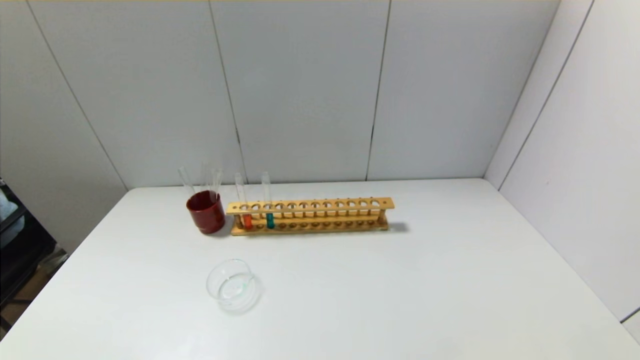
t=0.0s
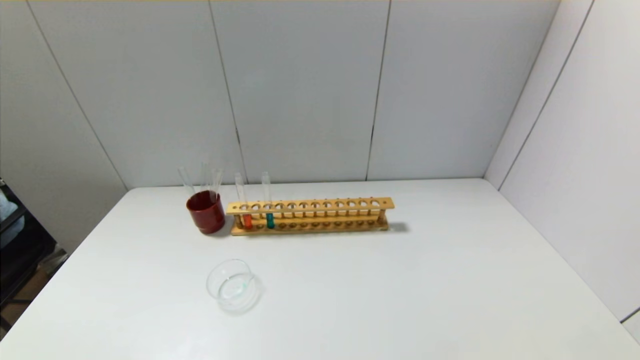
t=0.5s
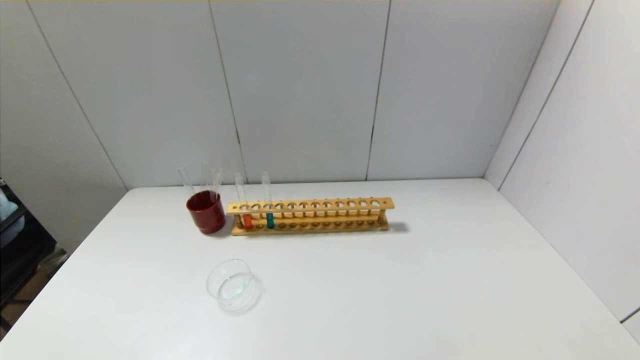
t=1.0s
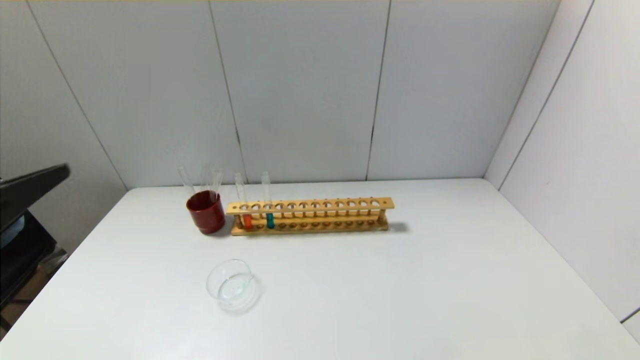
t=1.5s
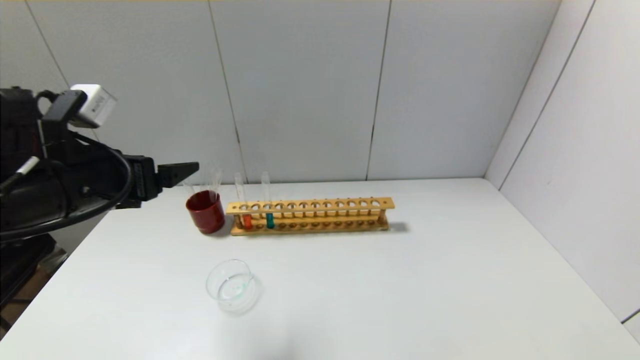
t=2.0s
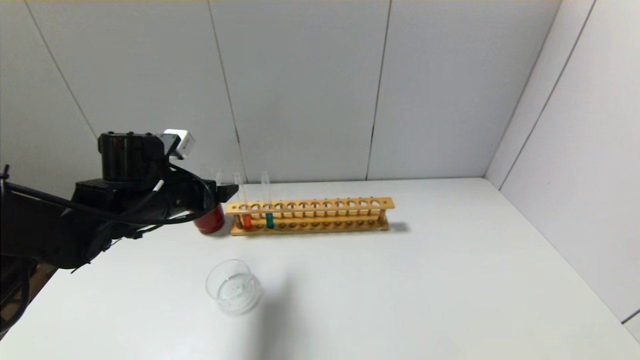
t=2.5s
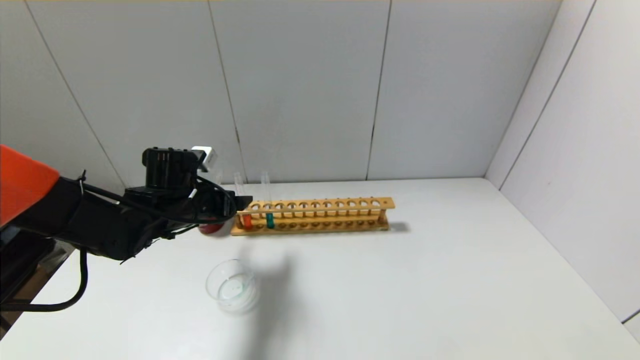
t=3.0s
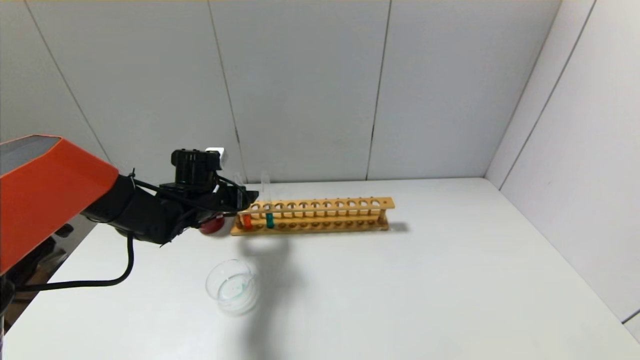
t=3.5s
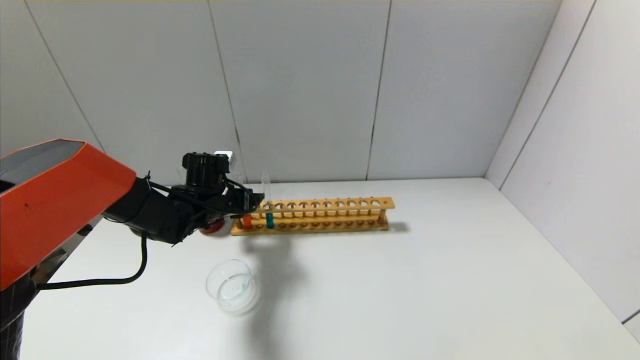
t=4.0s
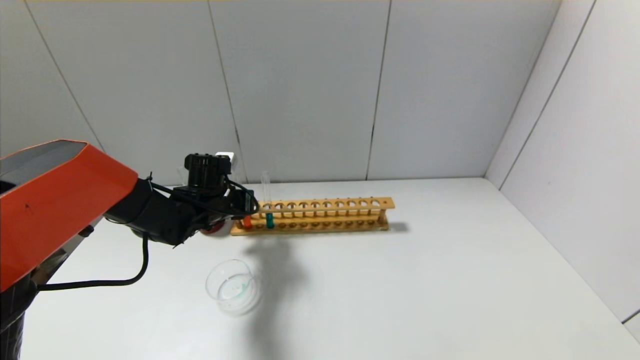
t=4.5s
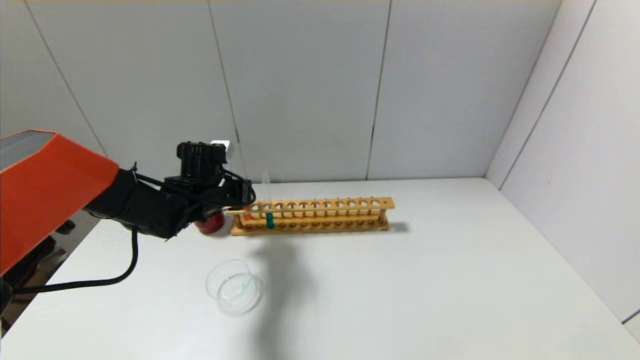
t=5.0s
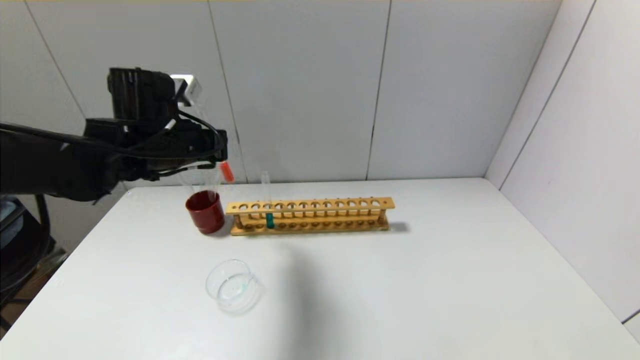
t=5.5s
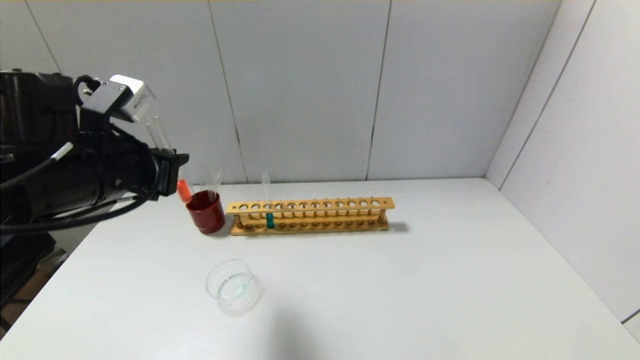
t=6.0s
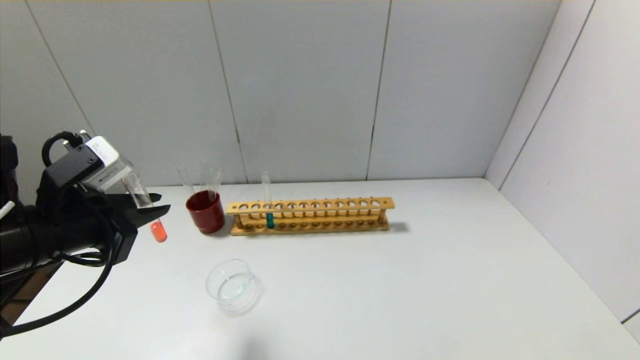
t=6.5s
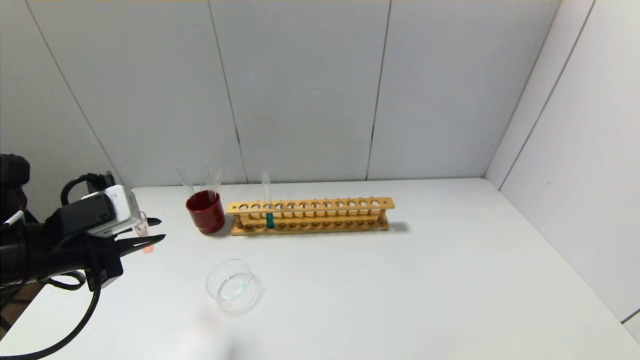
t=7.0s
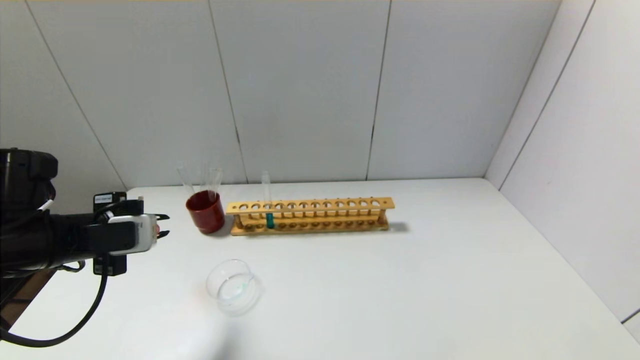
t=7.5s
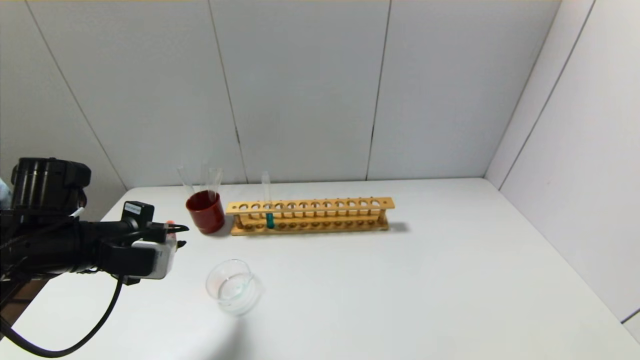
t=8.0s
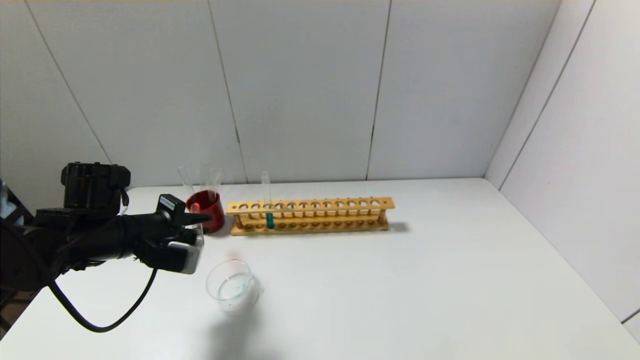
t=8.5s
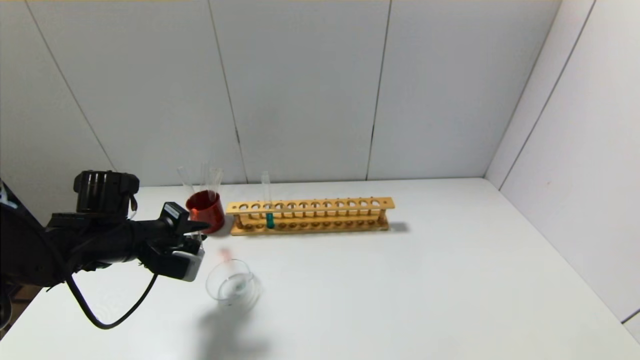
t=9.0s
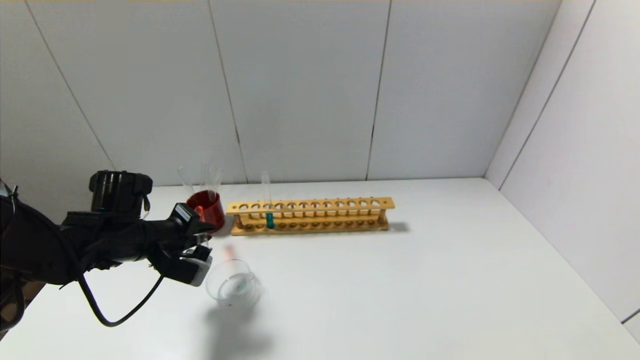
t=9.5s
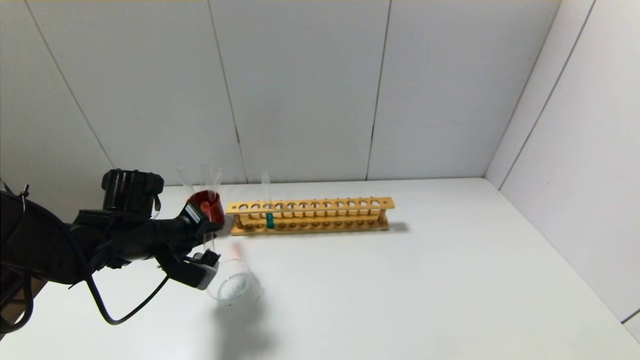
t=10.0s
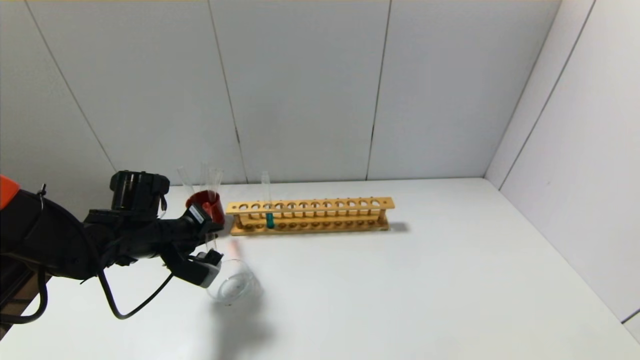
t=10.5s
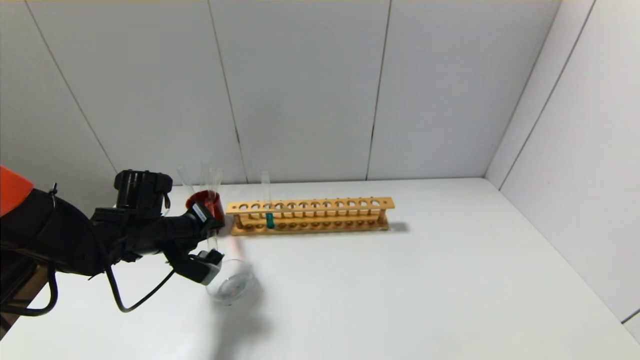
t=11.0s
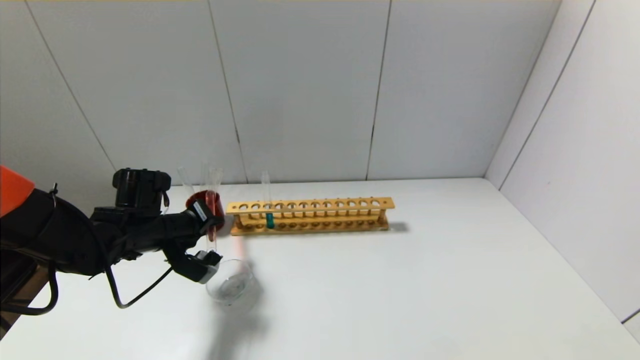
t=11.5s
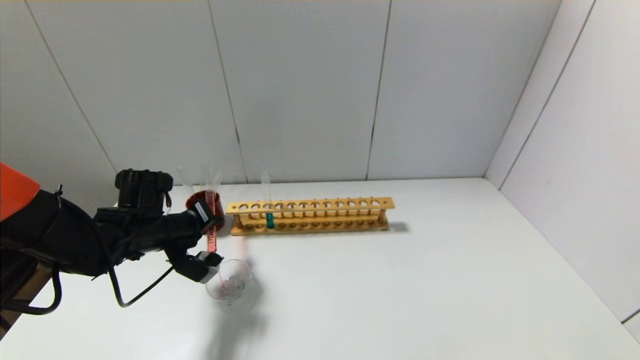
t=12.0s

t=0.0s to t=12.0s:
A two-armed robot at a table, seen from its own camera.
Step, t=0.0s to t=4.5s: Grasp the red reagent with the left gripper.
t=0.0s to t=2.0s: The left gripper goes roughly 30 cm forward and upward.
t=2.0s to t=4.0s: The left gripper shifts roughly 20 cm forward and downward.
t=4.0s to t=6.0s: The left gripper moves backward and upward, about 25 cm, and closes.
t=6.0s to t=8.0s: The left gripper travels downward by roughly 10 cm.
t=8.0s to t=10.0s: The left gripper heads forward, covering about 5 cm.
t=10.0s to t=12.0s: The grippers move only a little.

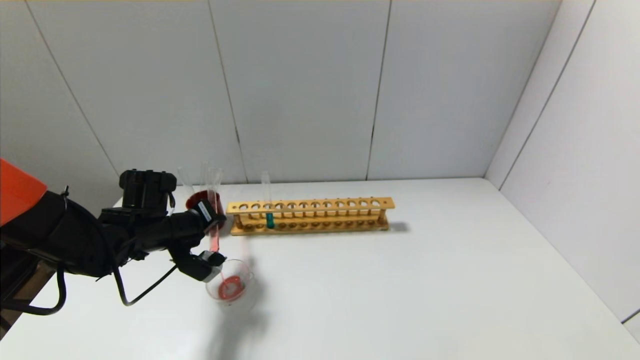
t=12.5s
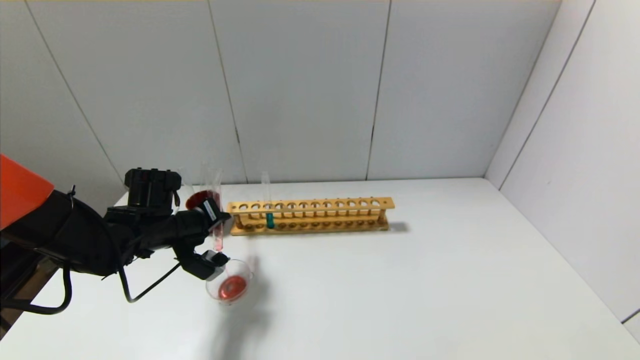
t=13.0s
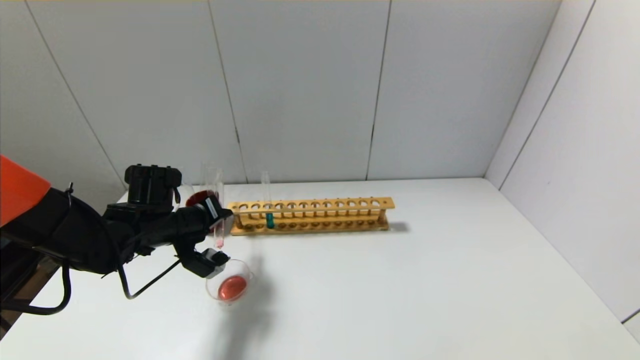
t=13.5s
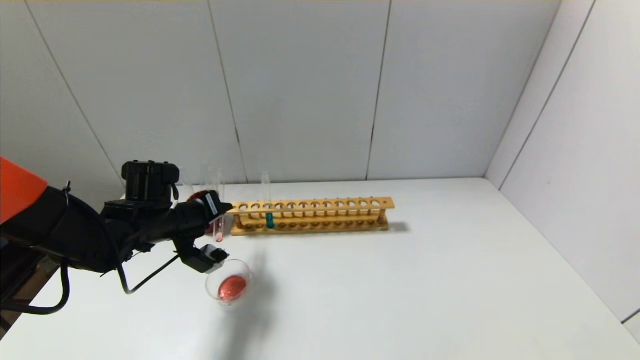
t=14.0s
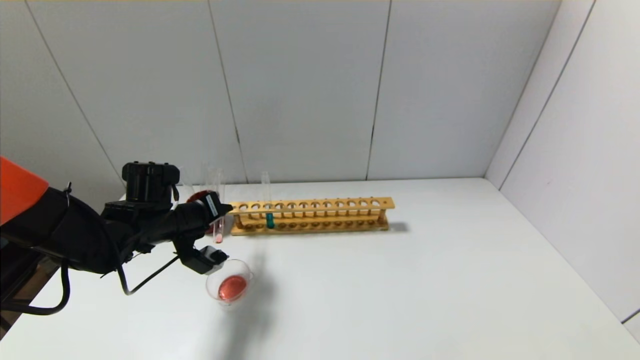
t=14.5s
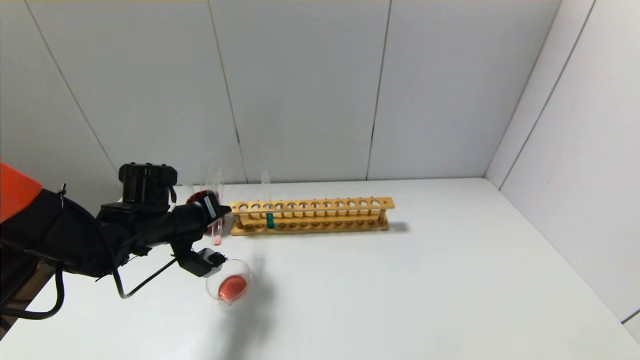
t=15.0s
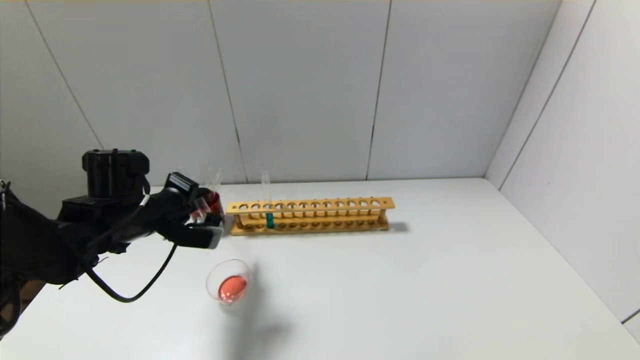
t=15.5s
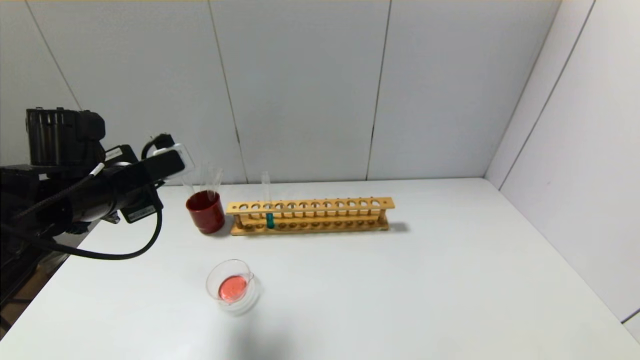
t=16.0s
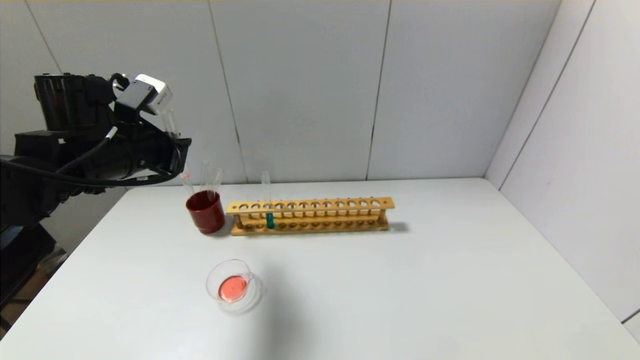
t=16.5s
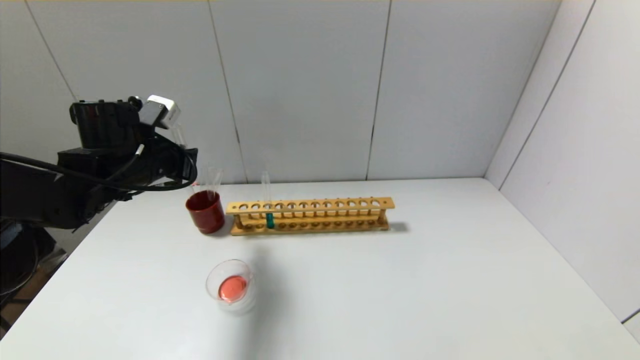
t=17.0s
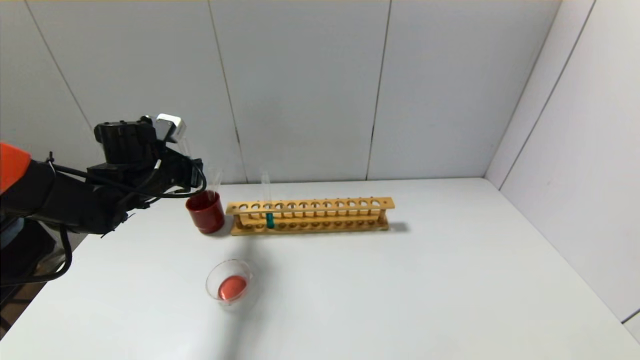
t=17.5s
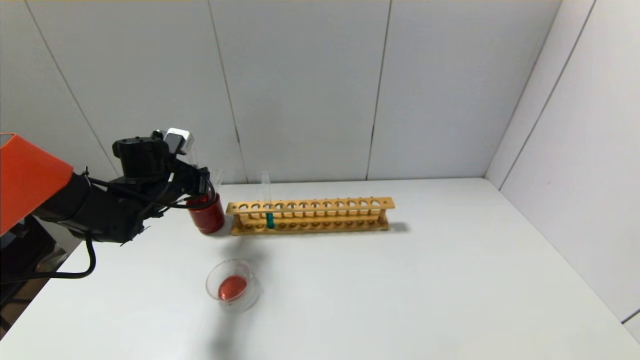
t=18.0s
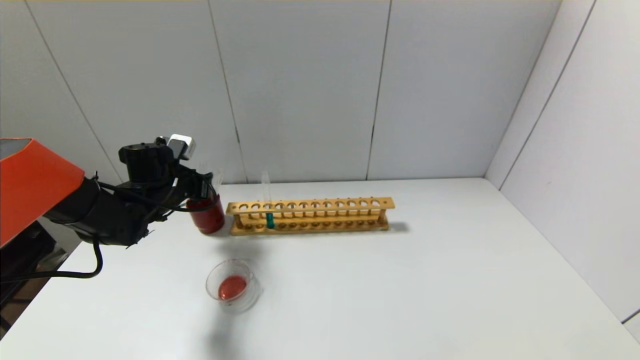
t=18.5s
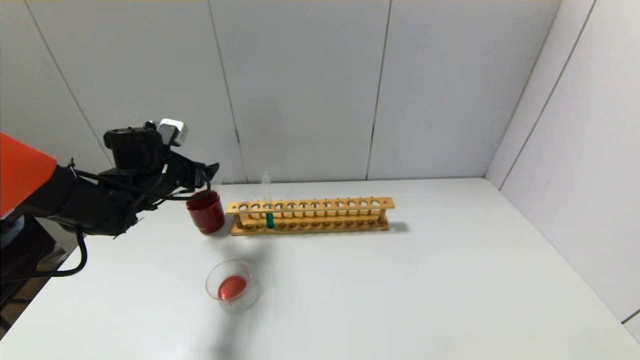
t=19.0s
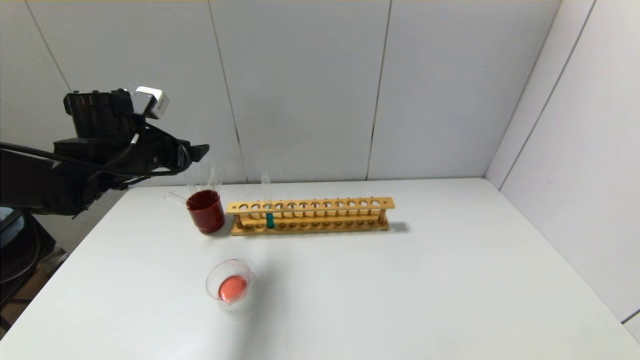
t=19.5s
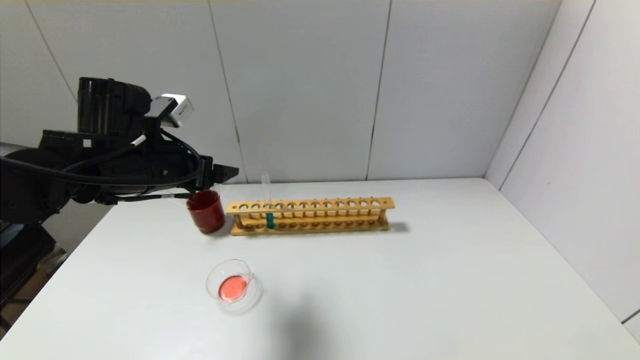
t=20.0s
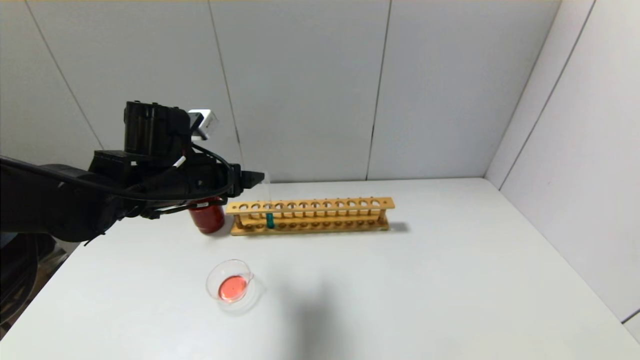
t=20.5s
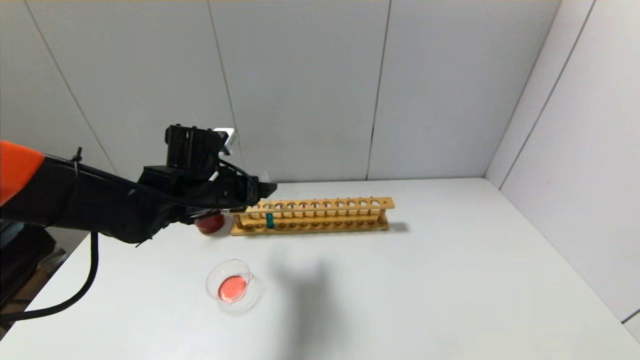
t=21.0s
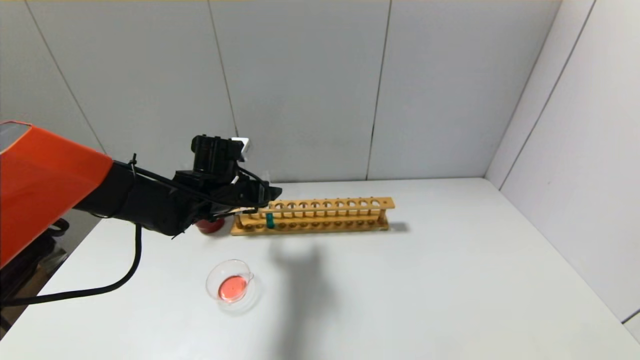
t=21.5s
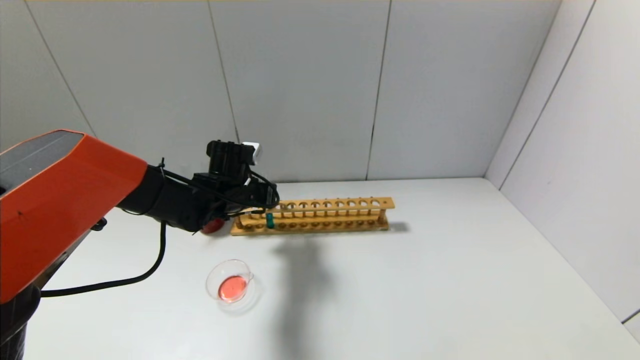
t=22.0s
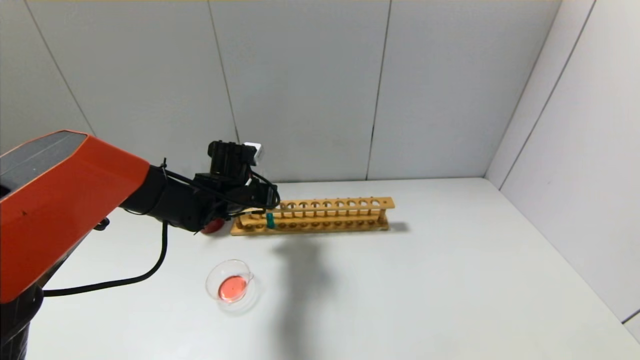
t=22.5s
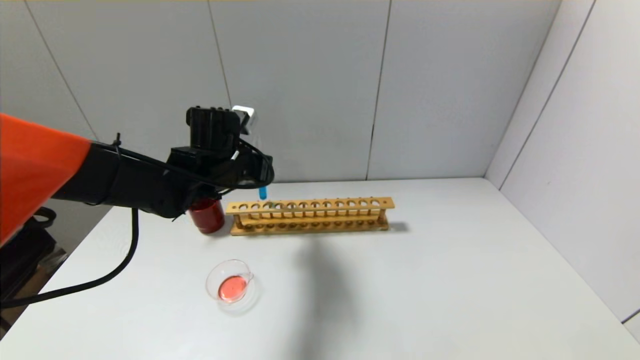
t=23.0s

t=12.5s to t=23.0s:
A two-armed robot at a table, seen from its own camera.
Step, t=12.5s to t=15.0s: Pour the red reagent into the graduated cylinder with the left gripper.
Step, t=15.5s to t=18.5s: Place the test tube into the brown cup with the left gripper.
Step, t=19.0s to t=22.0s: Grasp the blue reagent with the left gripper.
t=12.5s to t=14.5s: There are only small adjustments of the grippers.
t=14.5s to t=16.5s: The left gripper is displaced upward by approximately 15 cm.
t=16.5s to t=19.0s: The left gripper heads downward and forward, covering roughly 10 cm, and opens.
t=19.0s to t=21.0s: The left gripper heads to the right and backward, covering about 10 cm.
t=21.0s to t=23.0s: The left gripper closes up.
